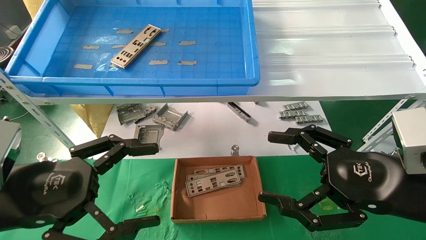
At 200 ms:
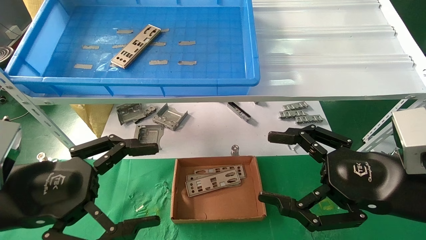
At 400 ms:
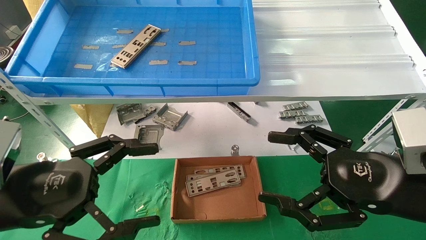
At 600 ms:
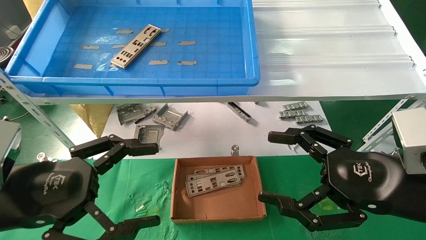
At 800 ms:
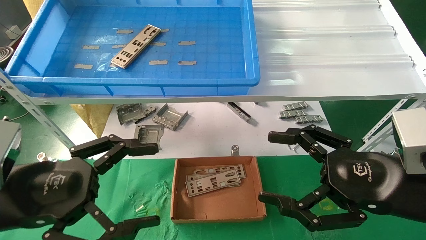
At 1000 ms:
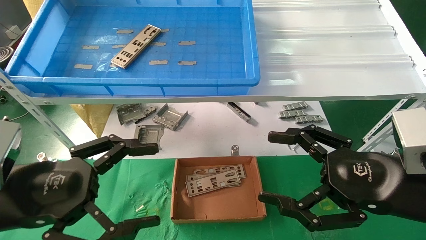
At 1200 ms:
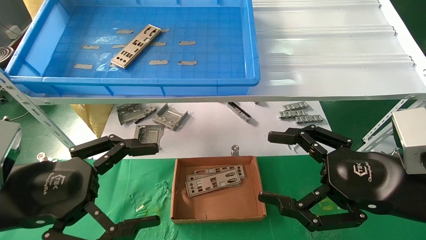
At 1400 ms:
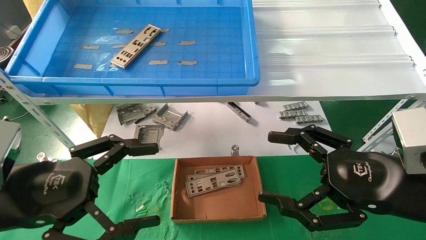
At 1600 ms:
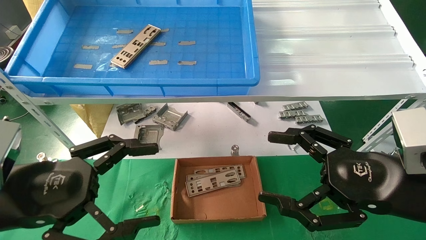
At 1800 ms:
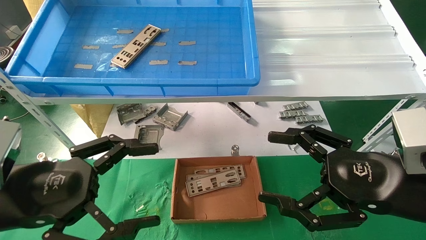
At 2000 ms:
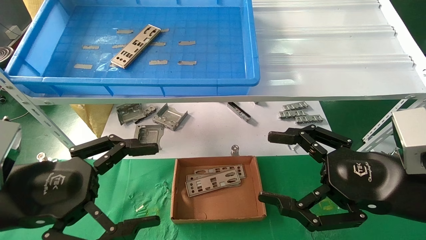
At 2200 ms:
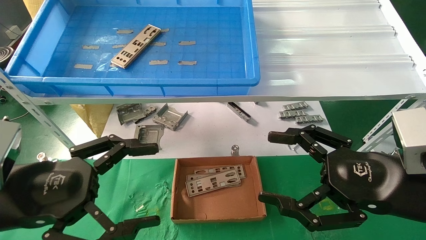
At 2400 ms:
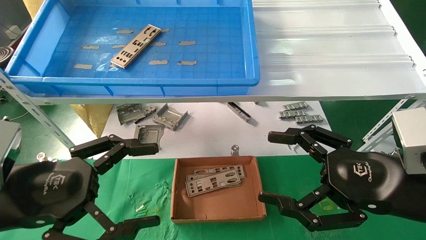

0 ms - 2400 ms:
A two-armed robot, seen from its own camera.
Task of the whole recording: pick up the parts on the tray and put them in the cardboard box.
0 ms - 2400 ms: Both grippers stay put.
